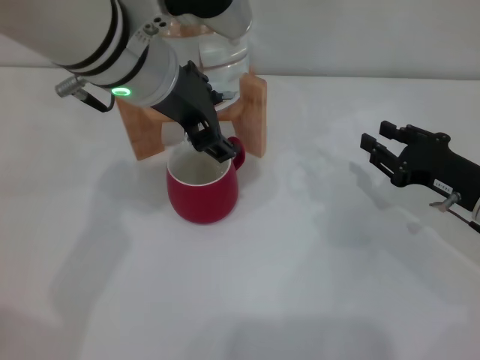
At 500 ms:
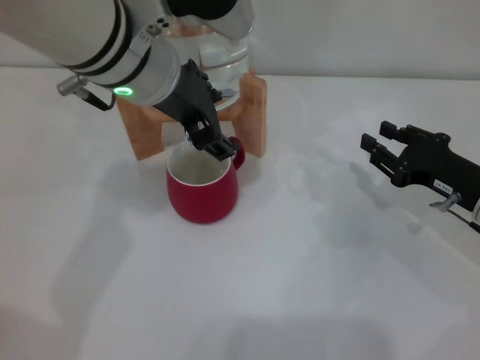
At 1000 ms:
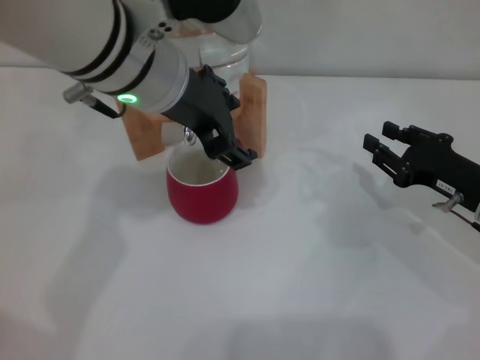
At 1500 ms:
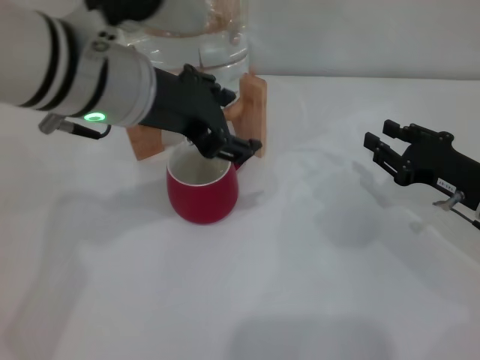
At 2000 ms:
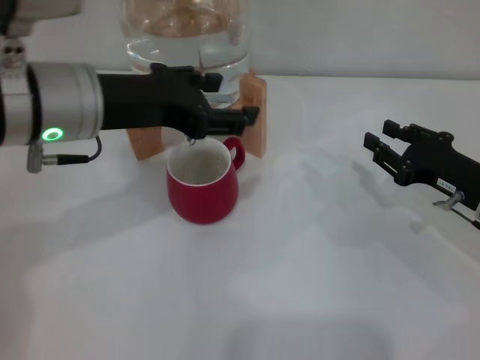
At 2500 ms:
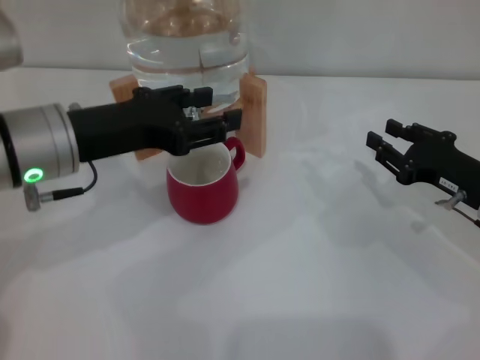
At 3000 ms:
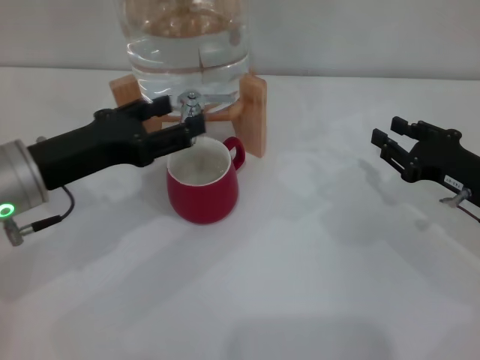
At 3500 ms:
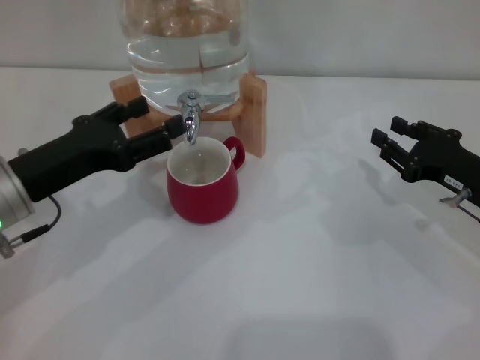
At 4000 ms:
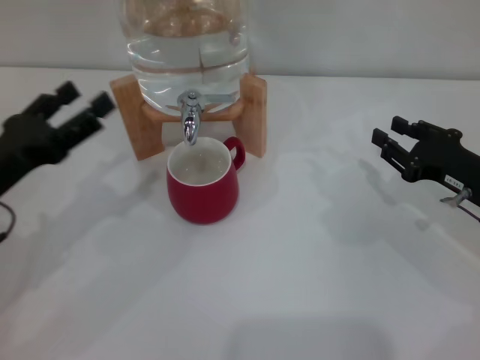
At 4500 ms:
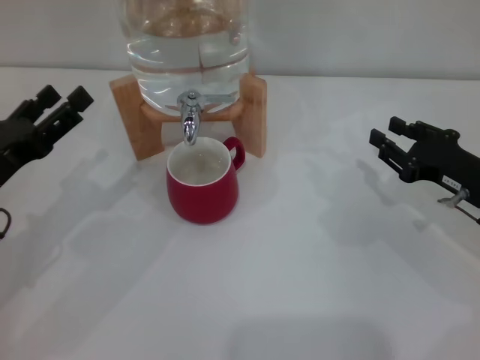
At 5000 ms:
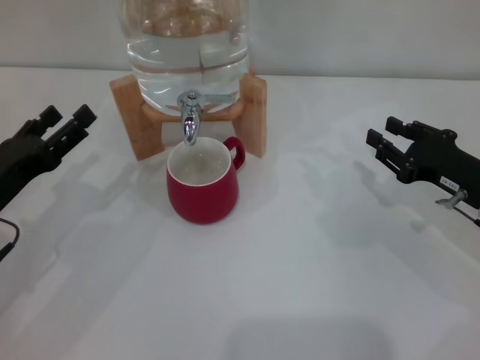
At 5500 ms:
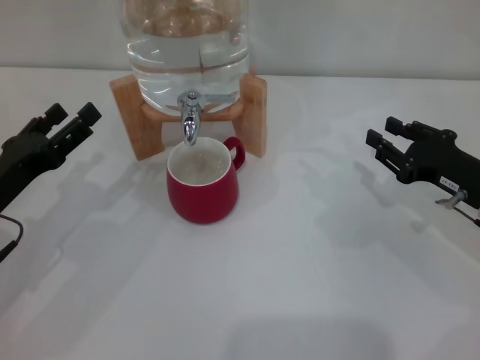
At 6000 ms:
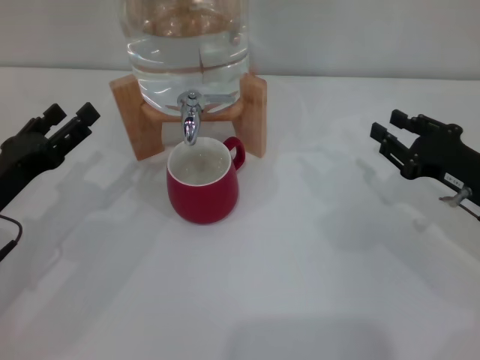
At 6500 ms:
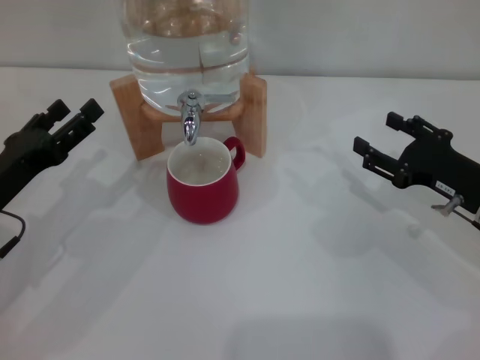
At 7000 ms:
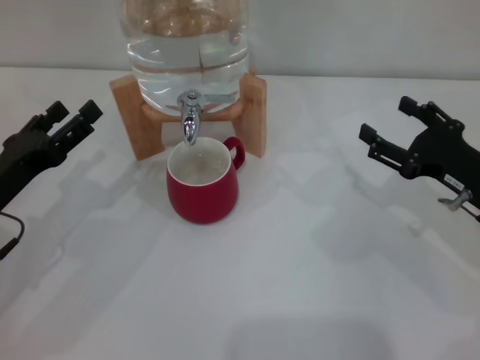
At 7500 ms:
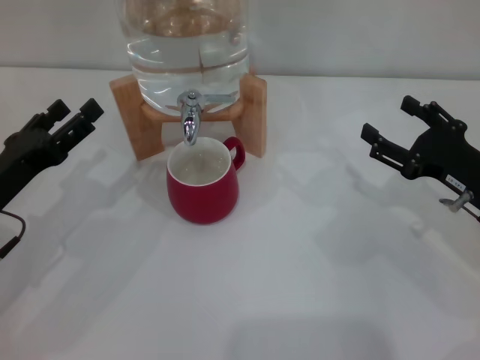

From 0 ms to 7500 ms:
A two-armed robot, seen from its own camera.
Task of the whole recording: the right gripper pick up the red cup and place it horizontally under the faucet, the left gripper turn on the faucet to fill the cup, and then turn off the faucet.
From 0 ms to 2000 ms: The left gripper is displaced to the left by about 5 cm.
From 2000 ms to 4000 ms: The left gripper is displaced downward, to the left and backward by some 15 cm, and opens up.
From 4000 ms to 5500 ms: There are only small adjustments of the grippers.
From 5500 ms to 7500 ms: The right gripper opens its fingers.
